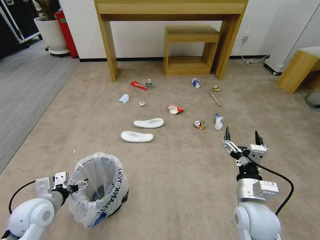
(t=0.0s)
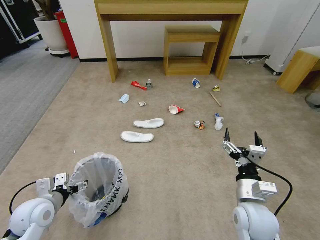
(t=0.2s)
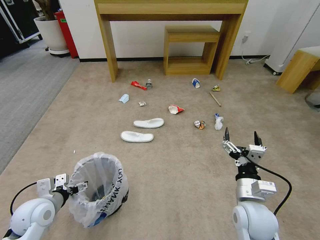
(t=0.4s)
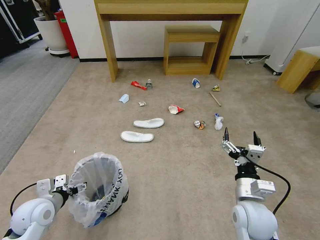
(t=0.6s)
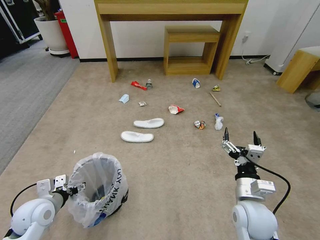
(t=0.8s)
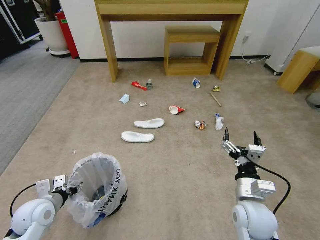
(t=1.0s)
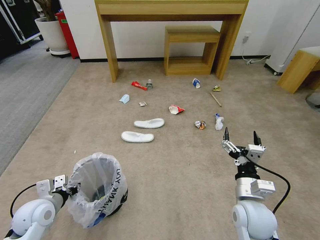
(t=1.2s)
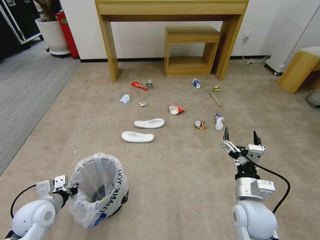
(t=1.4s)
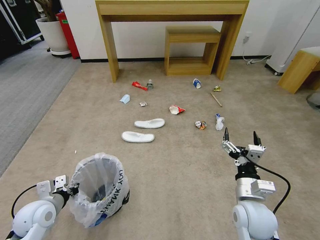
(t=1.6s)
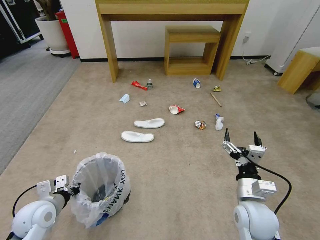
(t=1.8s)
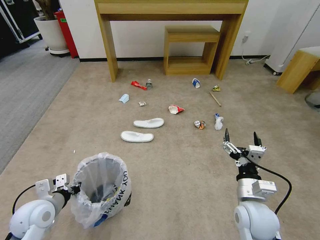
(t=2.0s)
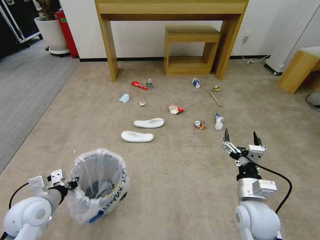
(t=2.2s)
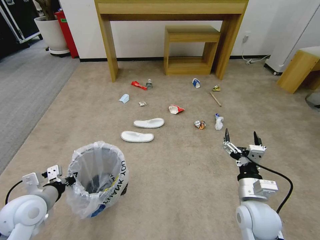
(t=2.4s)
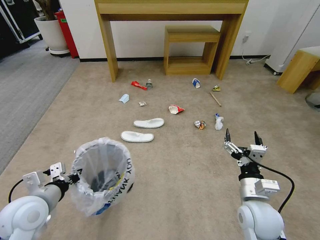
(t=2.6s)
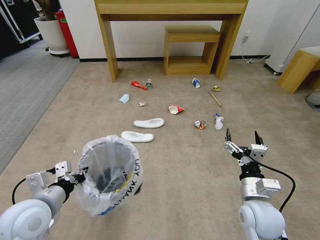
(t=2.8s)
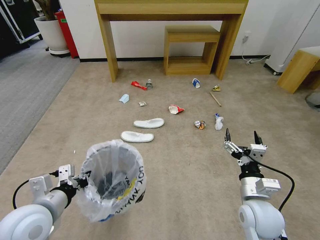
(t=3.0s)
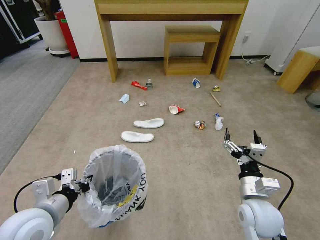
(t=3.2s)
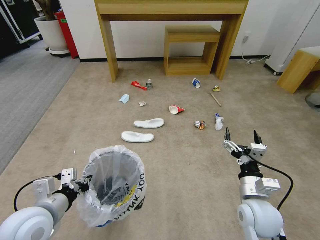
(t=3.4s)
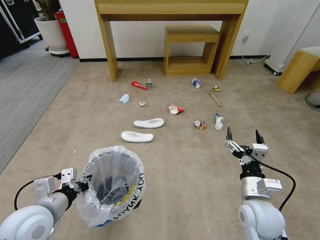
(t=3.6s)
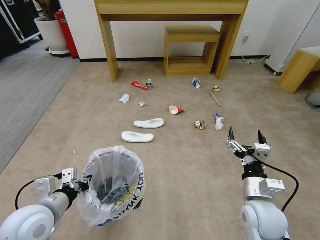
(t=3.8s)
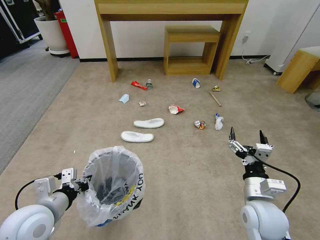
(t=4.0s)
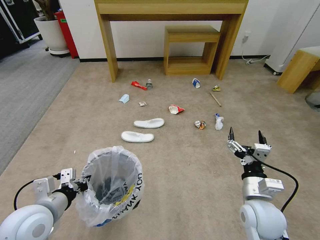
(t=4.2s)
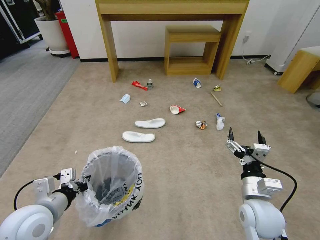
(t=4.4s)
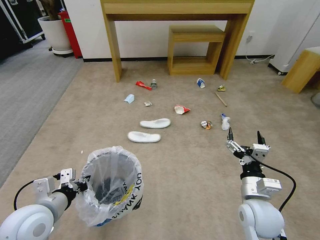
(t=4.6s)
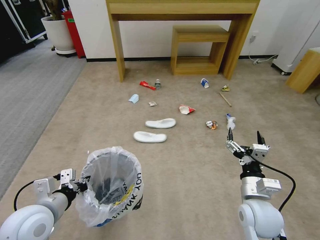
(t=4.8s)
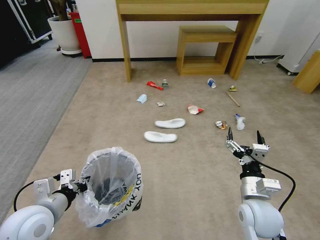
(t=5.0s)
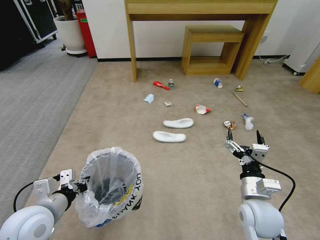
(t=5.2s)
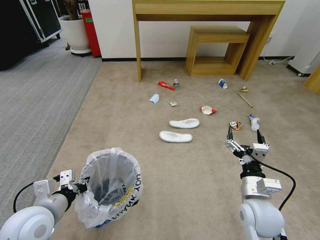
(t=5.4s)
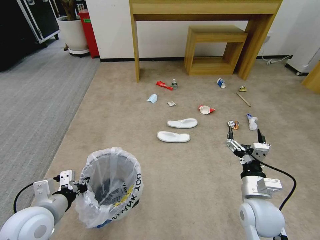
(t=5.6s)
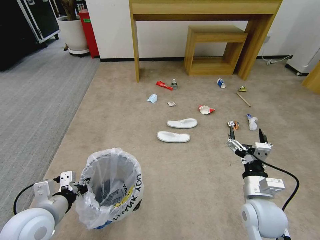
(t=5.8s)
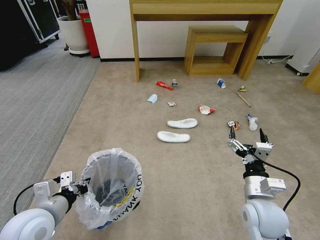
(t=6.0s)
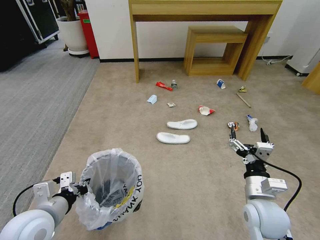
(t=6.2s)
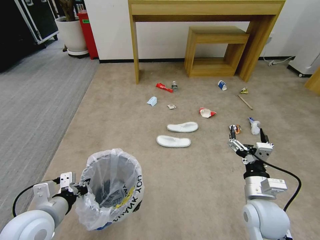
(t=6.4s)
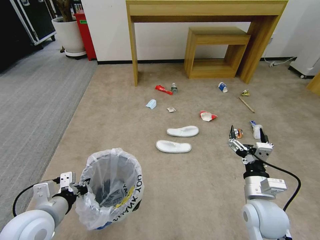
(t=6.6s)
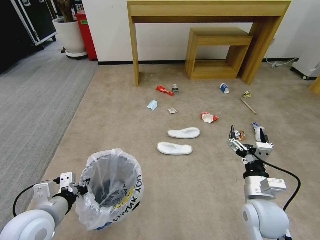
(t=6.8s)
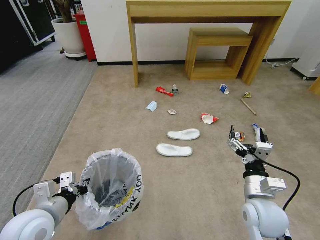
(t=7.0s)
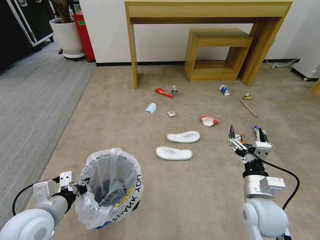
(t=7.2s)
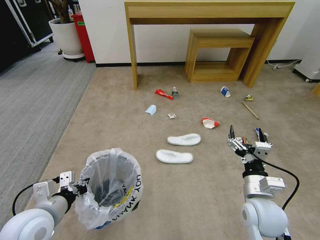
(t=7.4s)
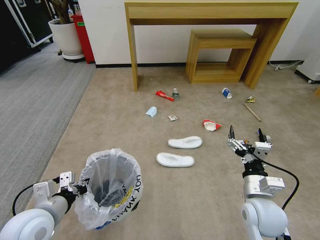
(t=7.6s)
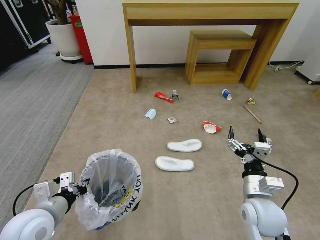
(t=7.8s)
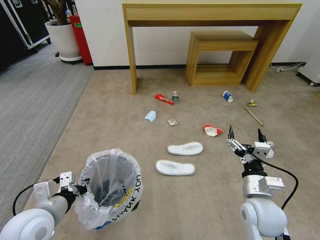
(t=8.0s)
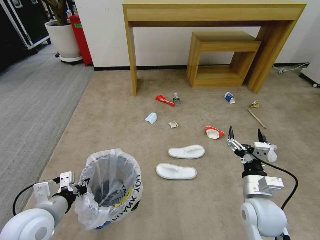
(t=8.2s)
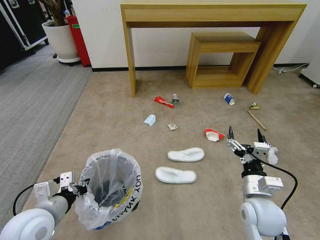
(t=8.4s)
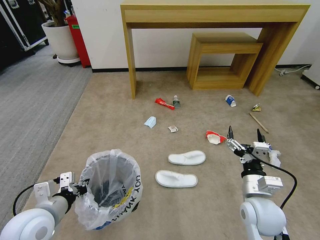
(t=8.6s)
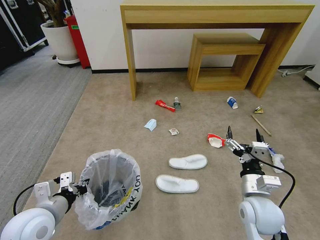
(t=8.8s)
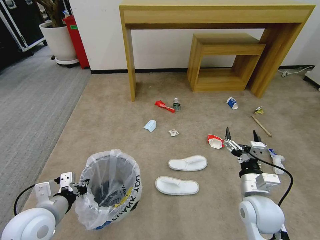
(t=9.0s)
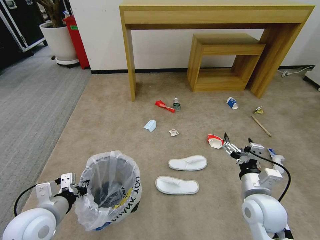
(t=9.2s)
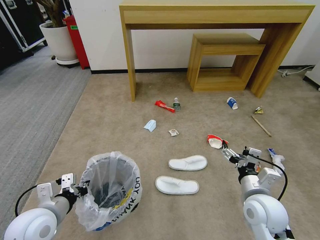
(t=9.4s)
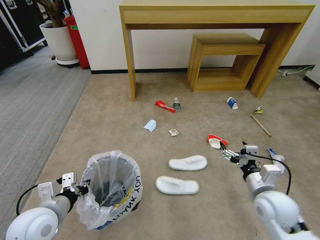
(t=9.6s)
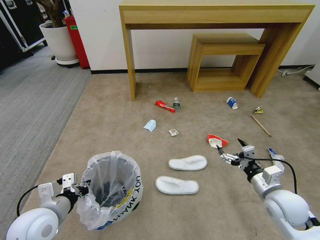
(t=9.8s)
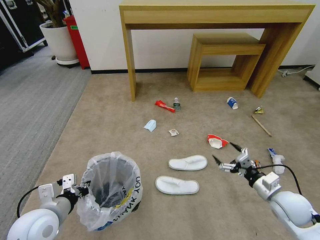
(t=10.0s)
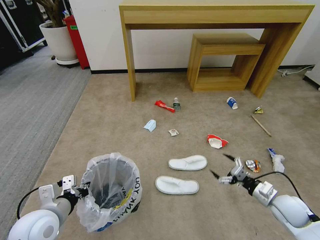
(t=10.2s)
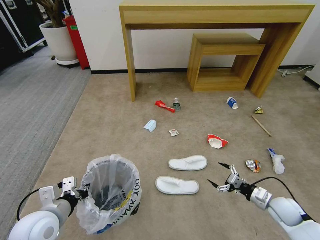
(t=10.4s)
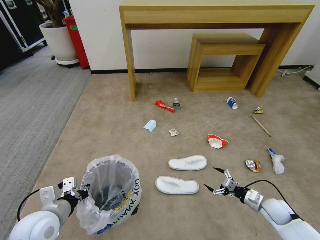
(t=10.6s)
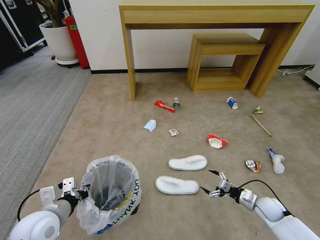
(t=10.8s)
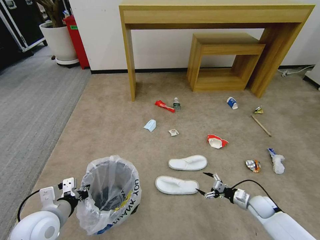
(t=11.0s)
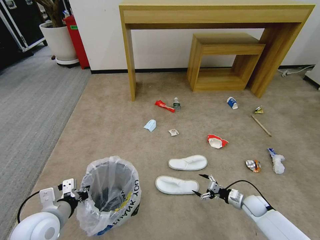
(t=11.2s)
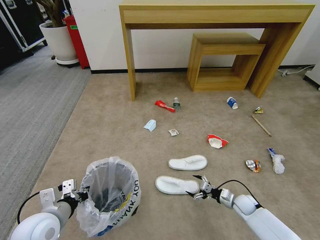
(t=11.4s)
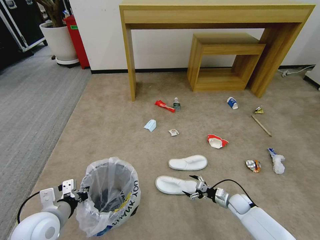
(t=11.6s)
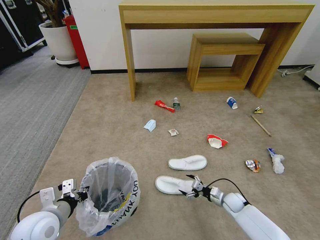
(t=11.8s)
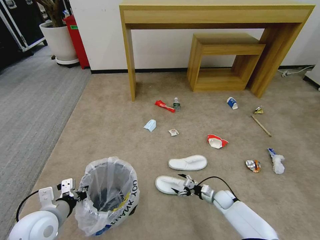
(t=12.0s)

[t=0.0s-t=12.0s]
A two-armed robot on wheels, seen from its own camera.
Task of the whole recording: Pick up the trash bin and place the garbage on the floor into it.
t=0.0s to t=1.6s: The left gripper closes up.
t=1.6s to t=3.0s: The left gripper moves upward and to the right, about 15 cm.
t=3.0s to t=4.4s: The grippers move only a little.
t=9.0s to t=10.4s: The right gripper goes some 20 cm to the right and downward.
t=10.4s to t=12.0s: The right gripper shifts about 20 cm downward, to the left and forward.

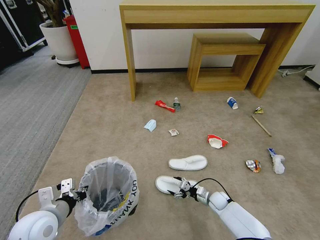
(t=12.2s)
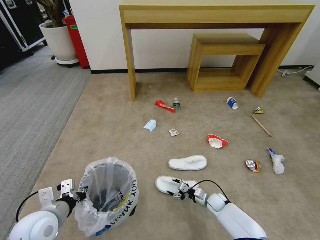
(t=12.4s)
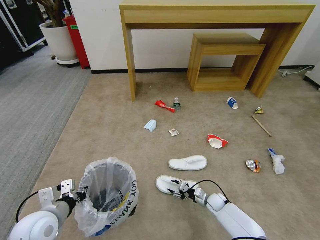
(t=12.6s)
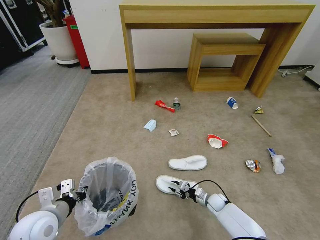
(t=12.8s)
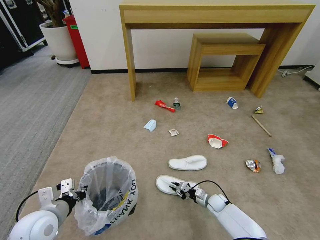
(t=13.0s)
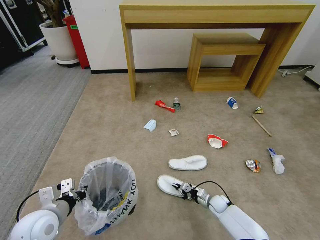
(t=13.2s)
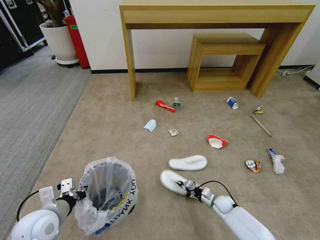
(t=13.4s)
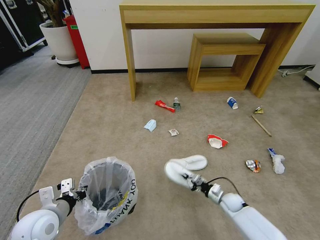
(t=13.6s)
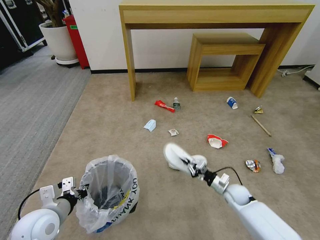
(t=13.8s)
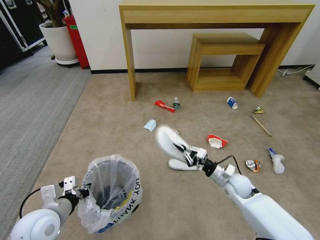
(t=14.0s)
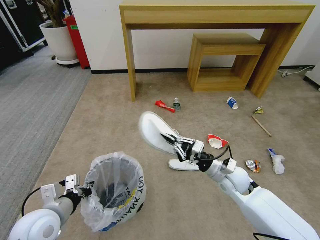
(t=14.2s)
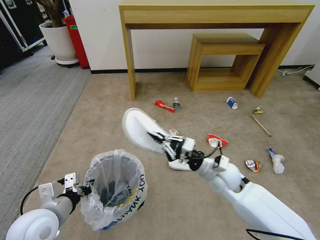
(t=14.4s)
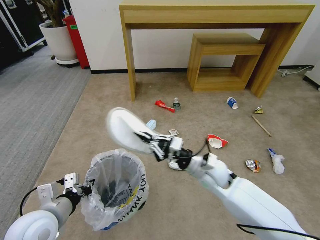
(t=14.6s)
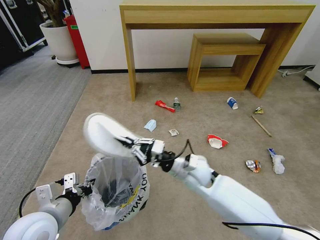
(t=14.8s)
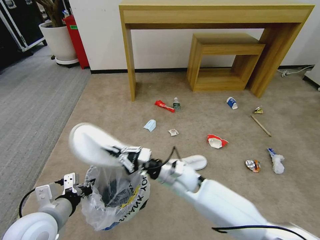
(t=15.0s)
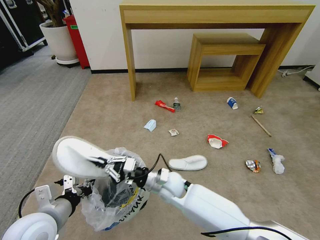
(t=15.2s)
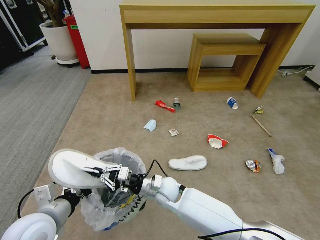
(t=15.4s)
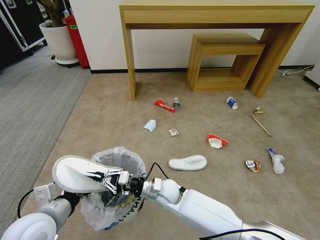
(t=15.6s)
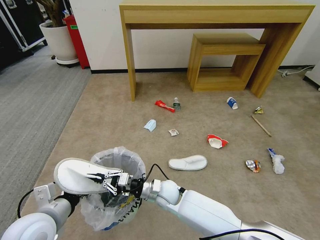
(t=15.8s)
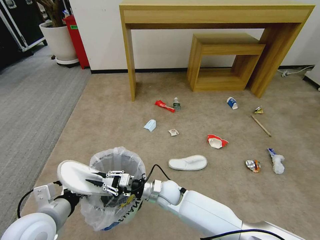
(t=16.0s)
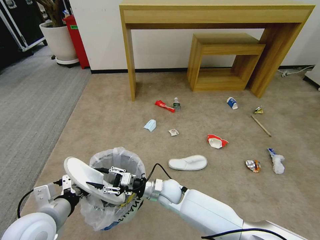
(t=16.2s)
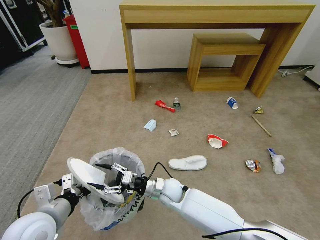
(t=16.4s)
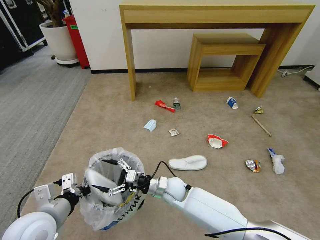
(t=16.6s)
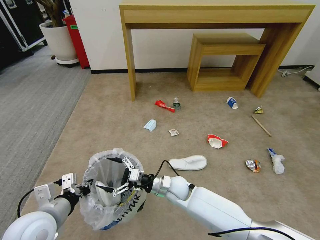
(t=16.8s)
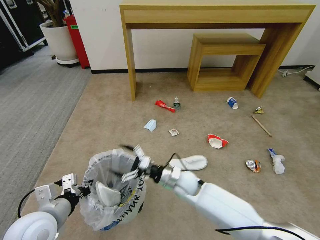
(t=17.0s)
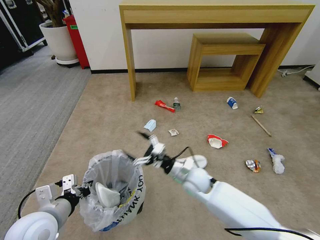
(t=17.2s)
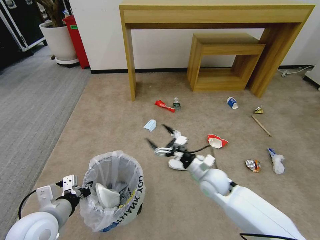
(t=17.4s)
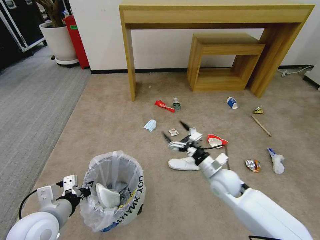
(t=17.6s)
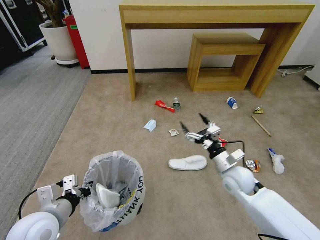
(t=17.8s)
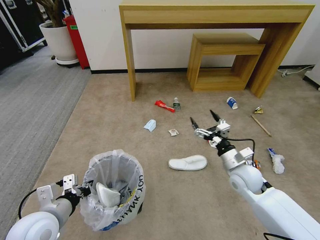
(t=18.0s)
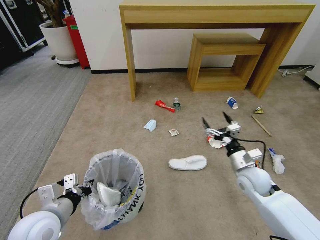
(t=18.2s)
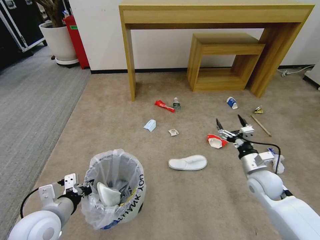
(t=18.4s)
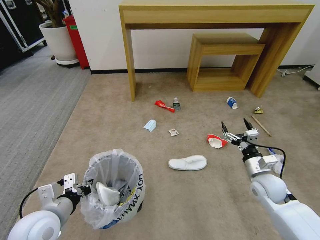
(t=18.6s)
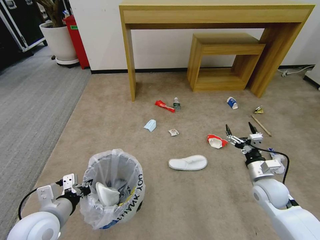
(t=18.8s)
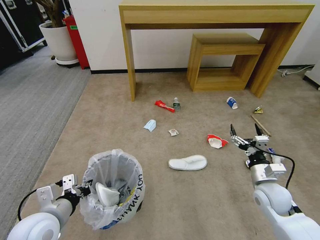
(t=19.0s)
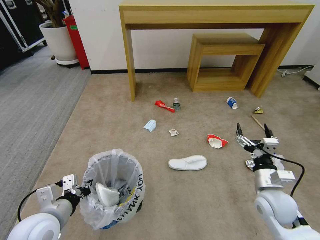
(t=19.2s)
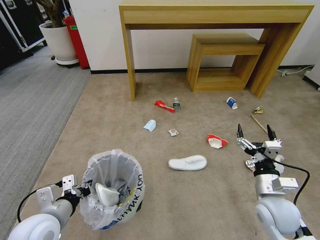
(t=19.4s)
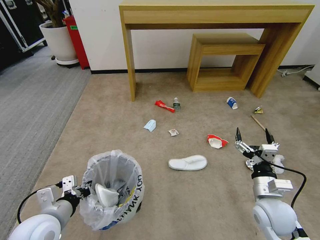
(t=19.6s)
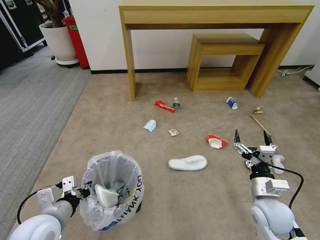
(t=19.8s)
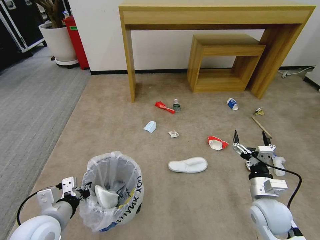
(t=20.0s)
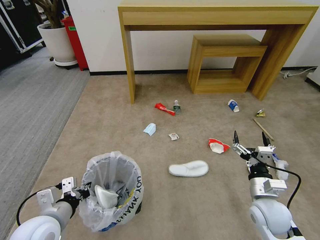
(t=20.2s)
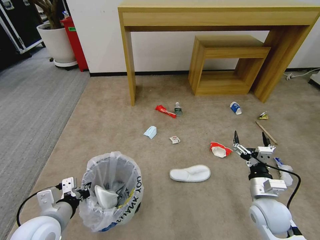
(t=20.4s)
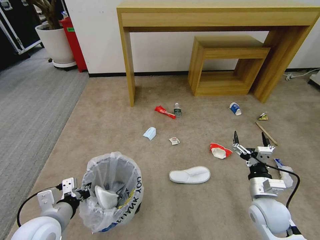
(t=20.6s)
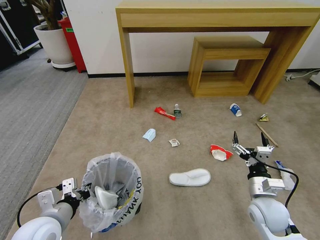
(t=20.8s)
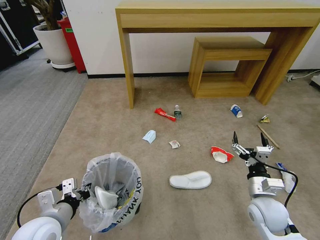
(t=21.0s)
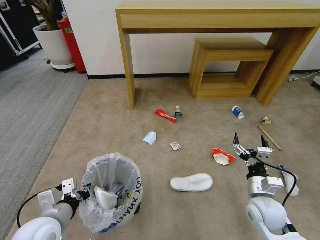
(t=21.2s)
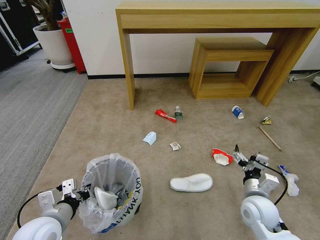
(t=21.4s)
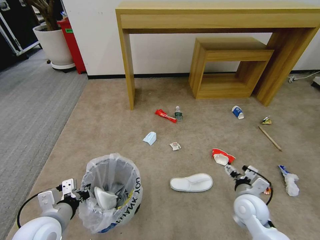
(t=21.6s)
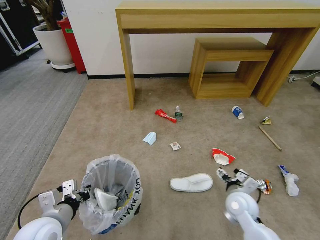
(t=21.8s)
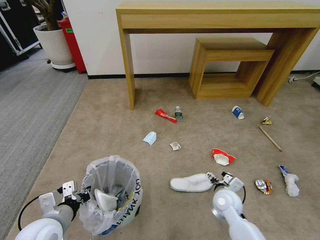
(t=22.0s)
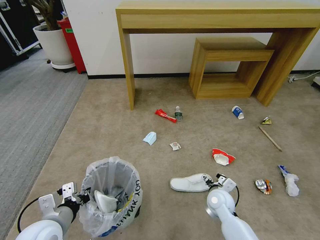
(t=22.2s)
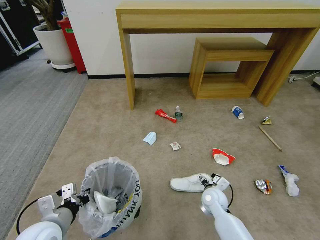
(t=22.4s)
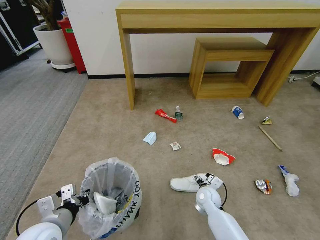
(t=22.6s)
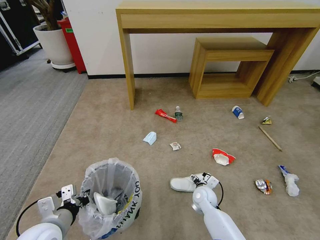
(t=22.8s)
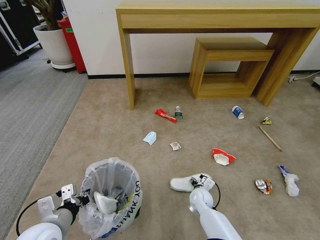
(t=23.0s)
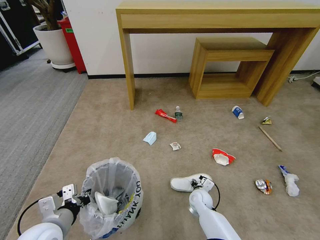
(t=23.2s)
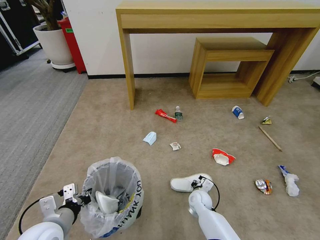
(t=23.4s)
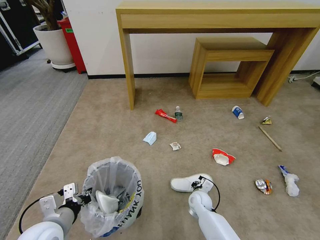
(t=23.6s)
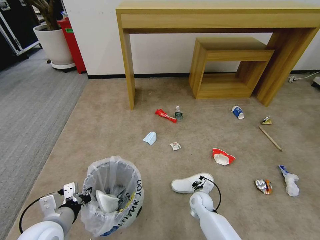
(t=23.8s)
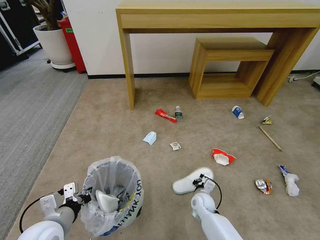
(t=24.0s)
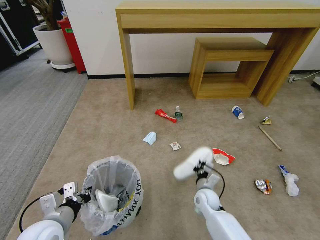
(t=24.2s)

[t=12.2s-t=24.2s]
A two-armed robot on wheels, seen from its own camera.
Task of the whole recording: Pick up the trash bin and place the garbage on the floor into it.
t=12.2s to t=13.8s: The right gripper travels upward by roughly 10 cm, and closes its fingers.
t=13.8s to t=15.2s: The right gripper goes approximately 30 cm to the left. The left gripper is displaced upward by roughly 5 cm.
t=15.2s to t=16.6s: The right gripper travels downward by some 5 cm, and opens up.
t=16.6s to t=18.2s: The right gripper shifts approximately 25 cm to the right.
t=18.2s to t=19.8s: The right gripper is displaced backward by about 10 cm.
t=21.2s to t=22.6s: The right gripper heads downward, to the left and forward, covering roughly 20 cm.
t=22.6s to t=24.2s: The right gripper closes.
